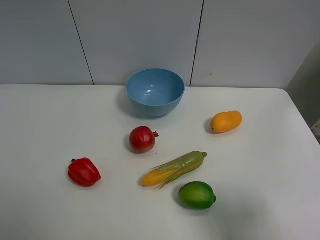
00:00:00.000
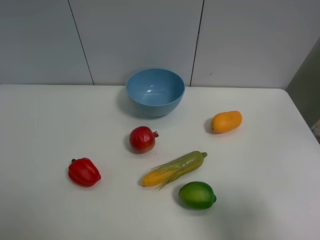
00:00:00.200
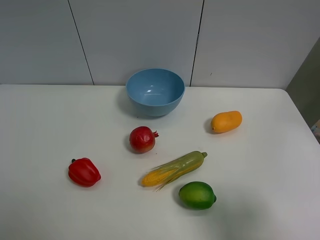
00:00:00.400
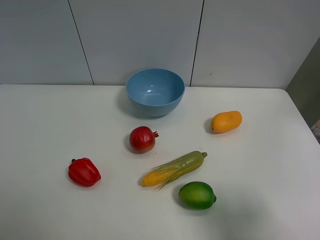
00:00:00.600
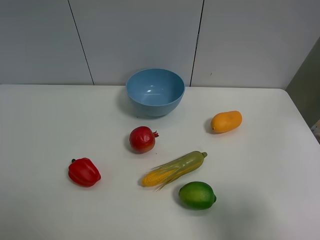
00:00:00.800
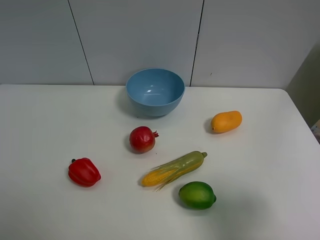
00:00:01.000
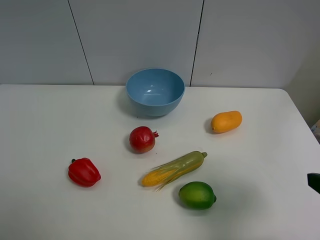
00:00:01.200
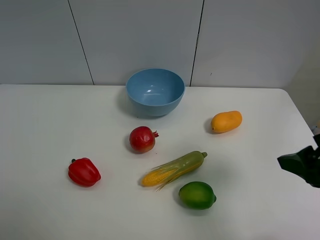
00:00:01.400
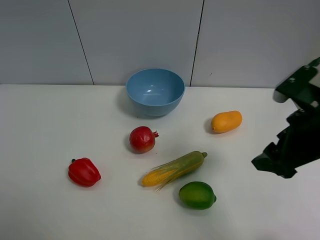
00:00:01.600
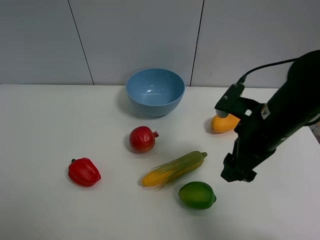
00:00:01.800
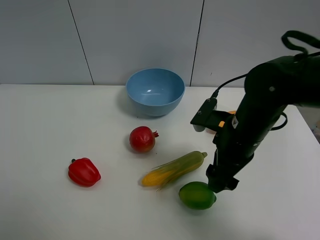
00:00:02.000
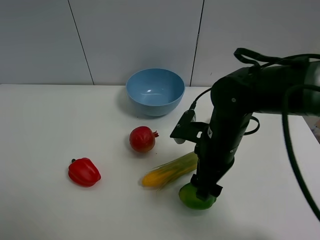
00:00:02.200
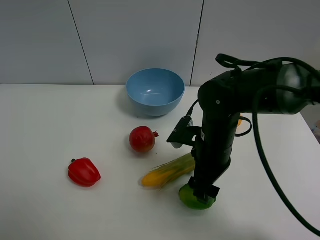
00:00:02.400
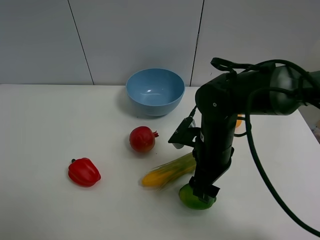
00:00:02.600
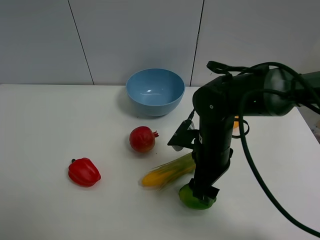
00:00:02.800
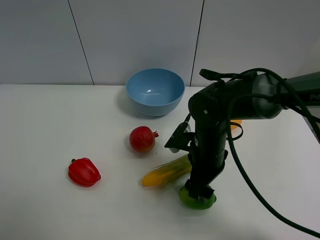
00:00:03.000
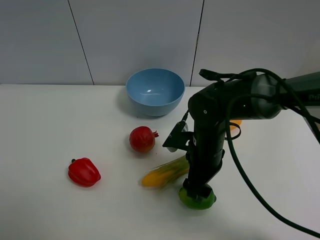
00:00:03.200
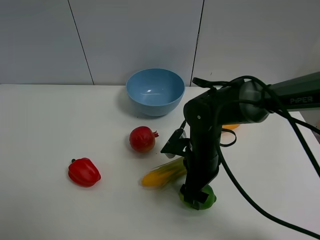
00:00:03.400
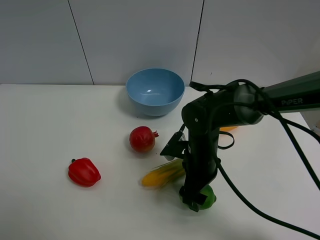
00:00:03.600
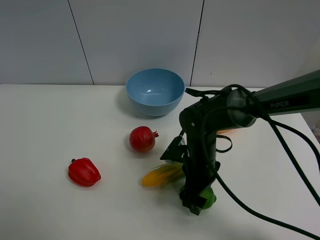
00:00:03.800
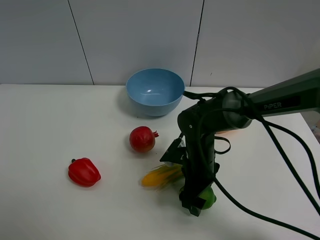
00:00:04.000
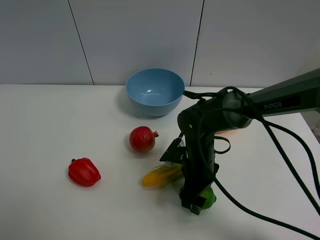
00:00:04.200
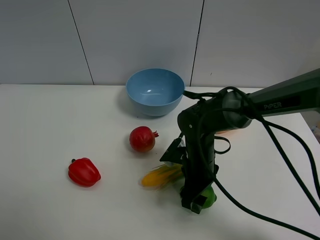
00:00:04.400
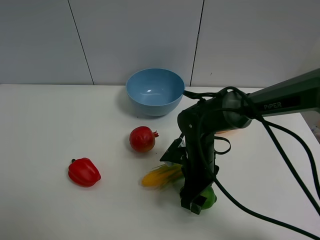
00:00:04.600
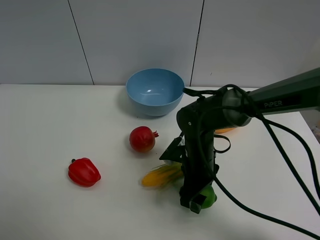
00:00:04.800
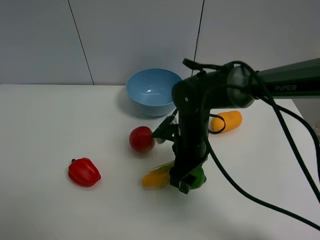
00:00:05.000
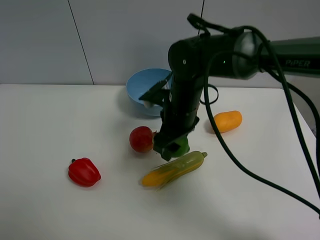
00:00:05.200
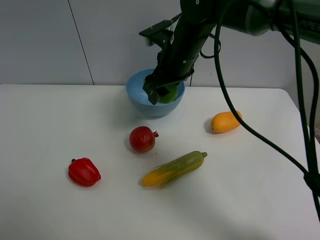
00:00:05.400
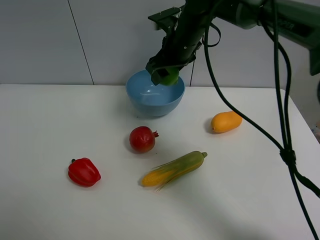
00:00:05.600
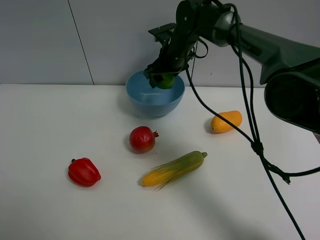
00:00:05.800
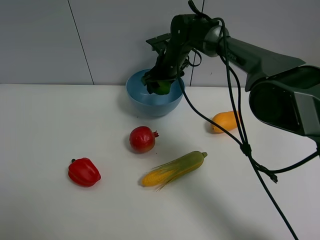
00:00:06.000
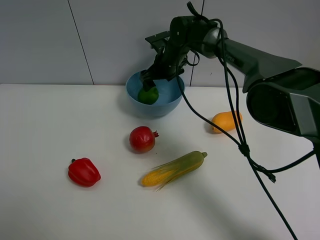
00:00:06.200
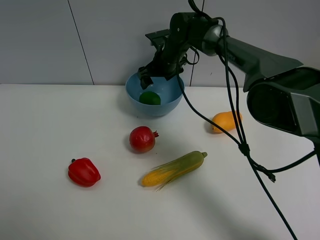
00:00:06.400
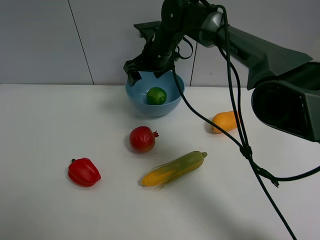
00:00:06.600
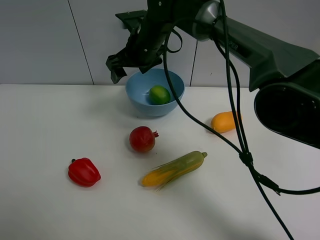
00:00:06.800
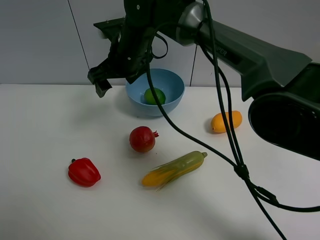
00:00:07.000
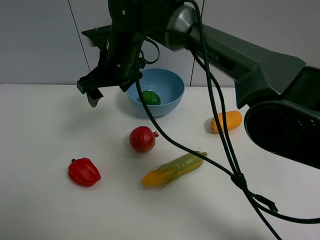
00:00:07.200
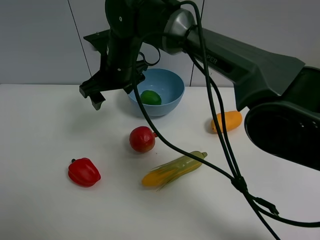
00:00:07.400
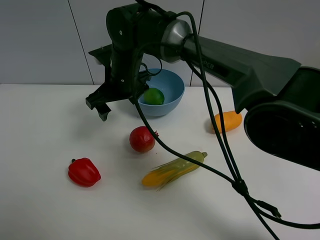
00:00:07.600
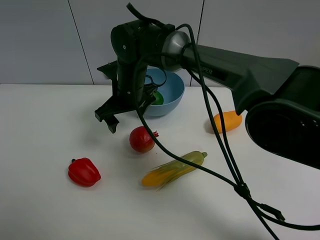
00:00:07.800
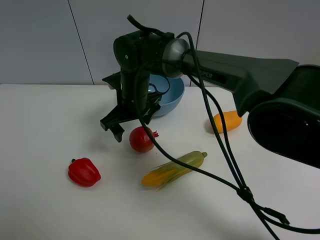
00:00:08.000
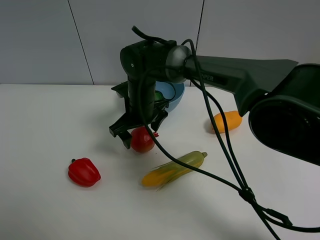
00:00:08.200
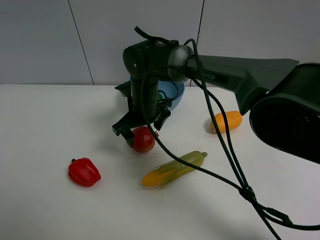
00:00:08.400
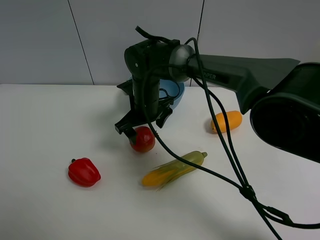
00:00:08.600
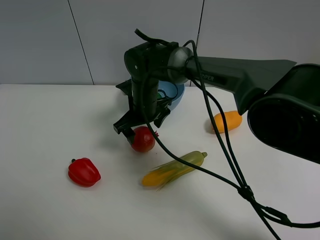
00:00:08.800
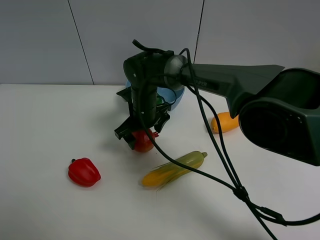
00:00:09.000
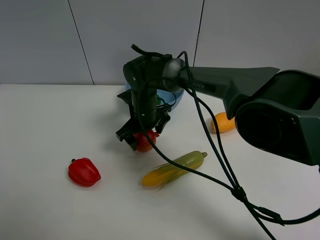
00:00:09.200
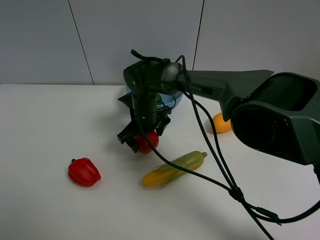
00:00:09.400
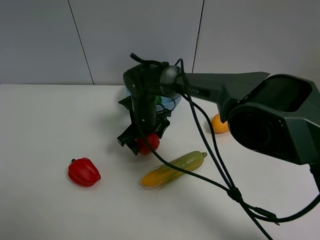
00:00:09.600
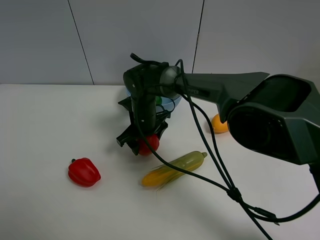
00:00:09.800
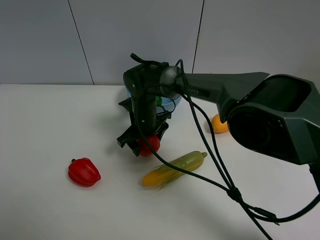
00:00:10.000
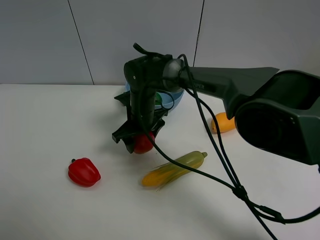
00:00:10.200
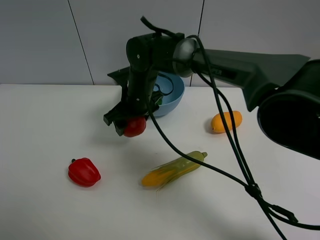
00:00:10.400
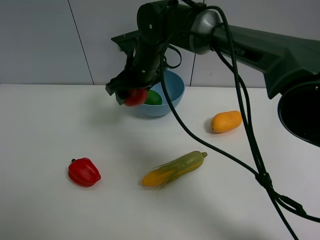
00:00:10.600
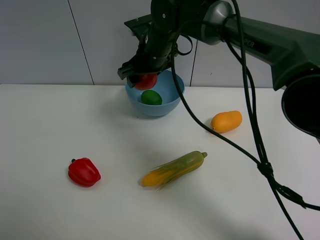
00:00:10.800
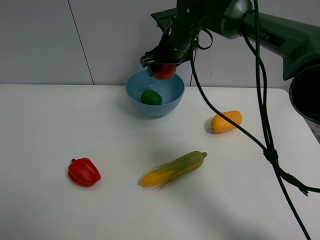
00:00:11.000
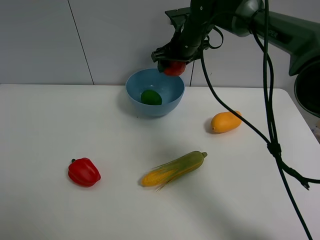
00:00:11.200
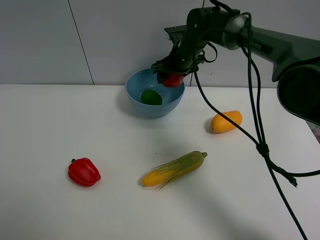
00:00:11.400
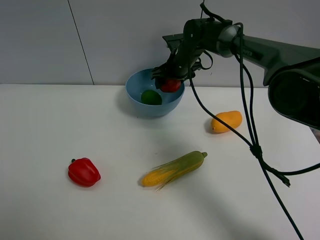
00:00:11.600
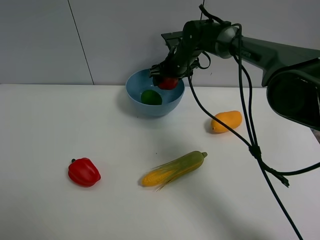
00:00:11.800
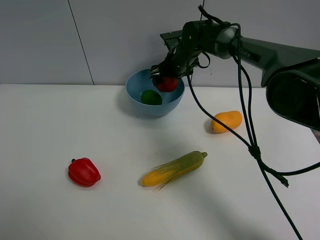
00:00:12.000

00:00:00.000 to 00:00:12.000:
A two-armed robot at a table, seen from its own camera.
Task of the whole recording: Put the three fruits on the table into a bowl.
Step, 00:00:00.000 to 00:00:04.600: Grasp the green lemon with right gripper.
Step, 00:00:04.800 to 00:00:06.400: Place the green lemon in the blue bowl with right gripper.
Step, 00:00:06.600 to 00:00:09.800: Grasp the pomegranate with right gripper.
00:00:00.000 to 00:00:01.600: The right gripper heads forward and to the left, covering approximately 20 cm.
00:00:01.600 to 00:00:03.000: The right gripper shifts approximately 20 cm to the left and downward.
00:00:03.000 to 00:00:04.400: The right gripper closes its fingers.
00:00:04.400 to 00:00:06.000: The right gripper shifts about 25 cm forward.
00:00:06.000 to 00:00:07.600: The right gripper travels backward and to the left by some 15 cm, and opens.
00:00:07.600 to 00:00:09.000: The right gripper is displaced downward by about 10 cm.
00:00:09.000 to 00:00:10.400: The right gripper is displaced upward by some 5 cm, and closes up.
00:00:10.400 to 00:00:12.000: The right gripper travels forward and to the right by about 15 cm.

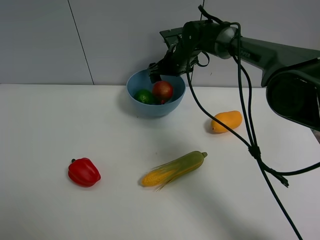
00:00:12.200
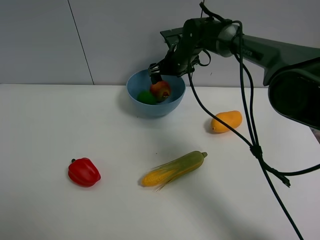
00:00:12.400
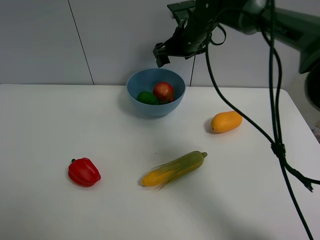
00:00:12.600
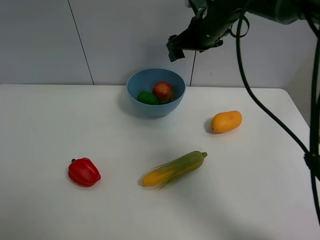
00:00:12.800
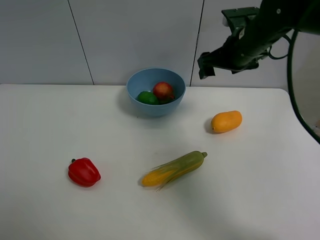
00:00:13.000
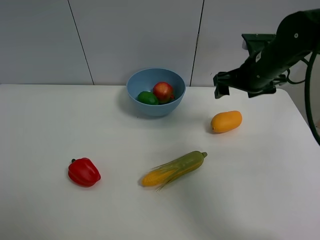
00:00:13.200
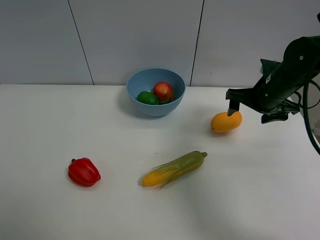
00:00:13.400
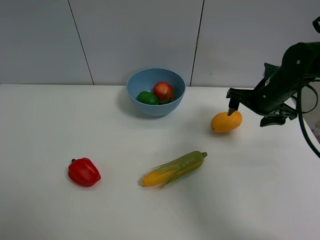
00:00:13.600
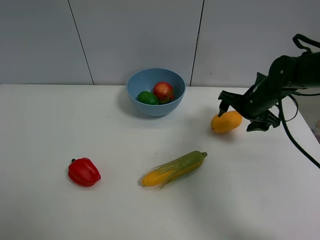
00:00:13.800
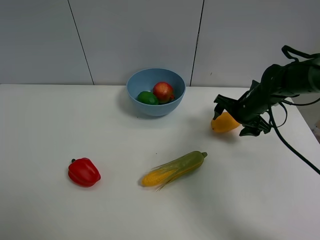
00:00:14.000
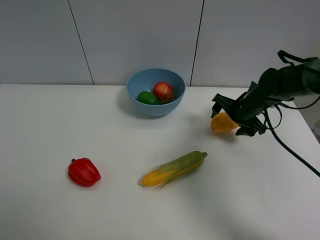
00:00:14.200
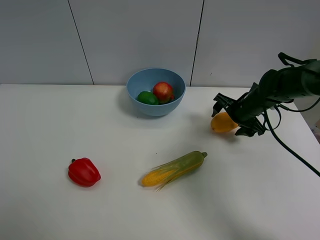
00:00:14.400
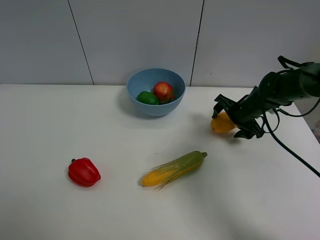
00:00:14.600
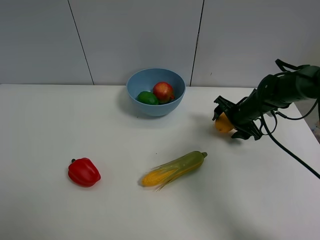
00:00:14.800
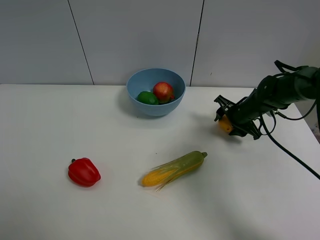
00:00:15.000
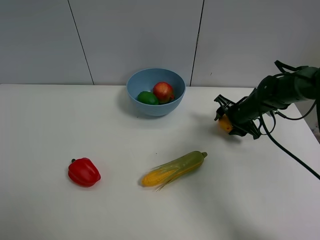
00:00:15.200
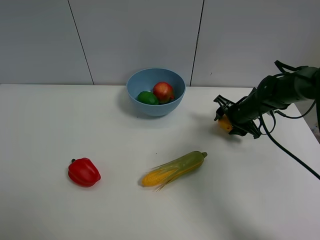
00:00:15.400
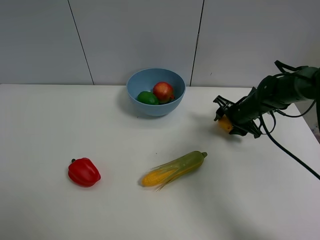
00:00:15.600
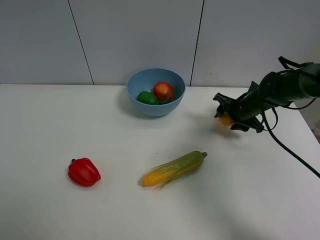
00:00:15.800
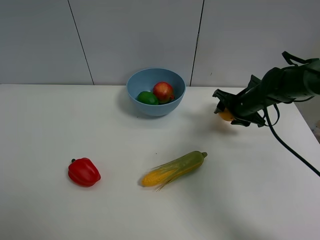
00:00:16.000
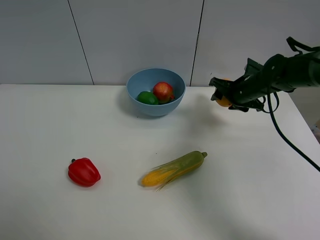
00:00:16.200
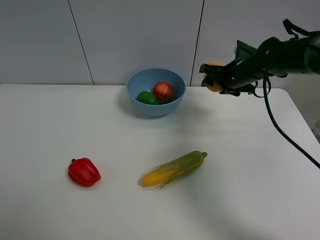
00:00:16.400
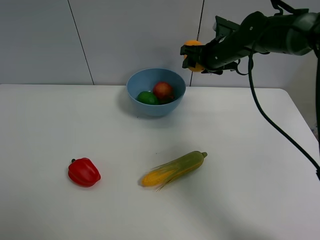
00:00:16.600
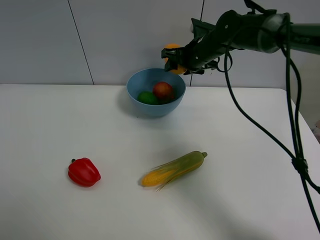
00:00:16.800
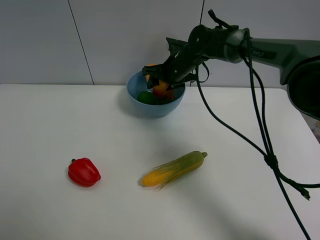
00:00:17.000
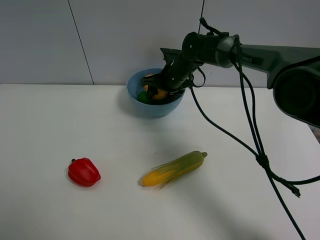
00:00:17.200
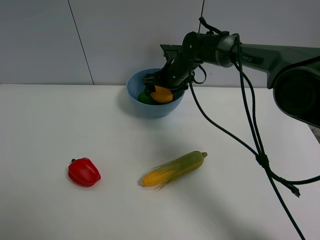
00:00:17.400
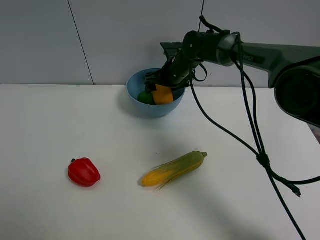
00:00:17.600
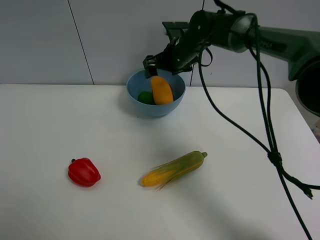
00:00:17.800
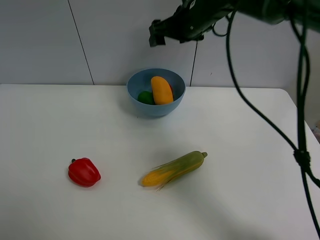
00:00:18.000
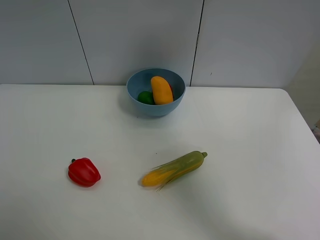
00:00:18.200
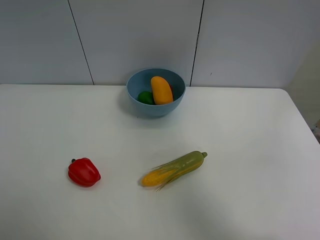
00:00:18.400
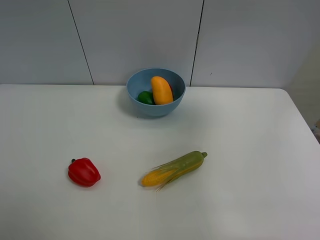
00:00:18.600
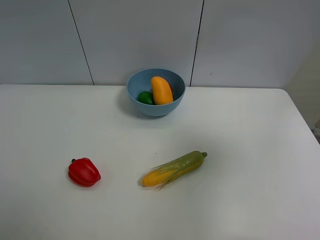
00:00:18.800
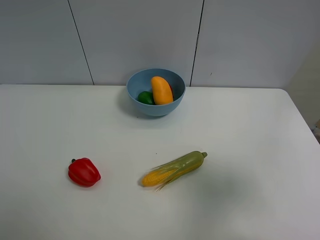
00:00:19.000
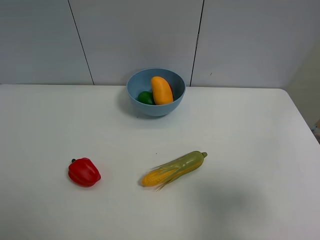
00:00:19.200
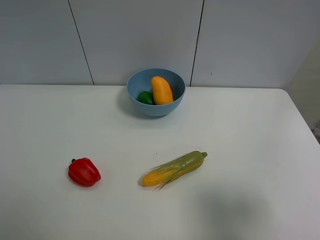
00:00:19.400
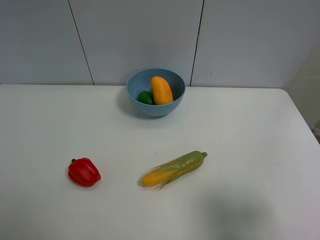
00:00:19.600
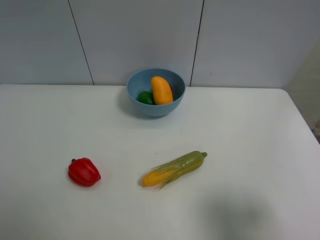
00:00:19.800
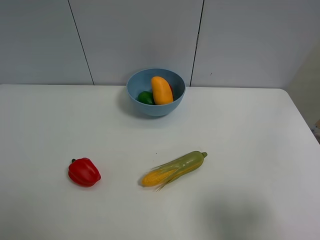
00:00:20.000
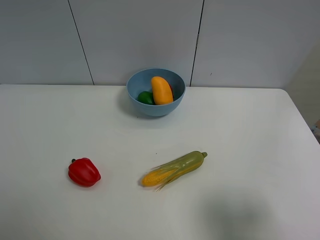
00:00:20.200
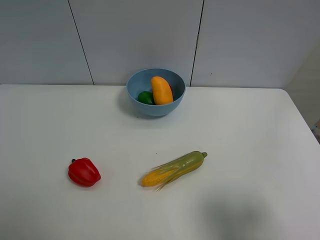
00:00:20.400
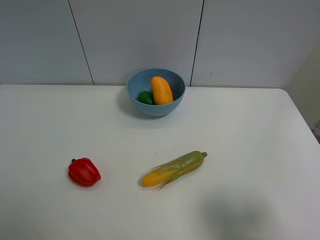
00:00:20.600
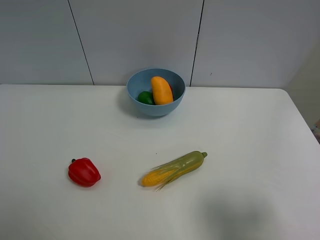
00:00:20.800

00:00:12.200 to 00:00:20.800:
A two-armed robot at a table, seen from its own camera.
Task of the whole recording: Put the three fruits on the table into a bowl.
Step, 00:00:12.400 to 00:00:15.000: Grasp the mango with right gripper.
Step, 00:00:15.200 to 00:00:17.600: Place the mango in the blue bowl with right gripper.
00:00:12.200 to 00:00:13.600: The right gripper goes some 25 cm to the right and backward.
00:00:13.600 to 00:00:15.000: The right gripper shifts roughly 10 cm downward, and closes.
00:00:15.000 to 00:00:16.600: The right gripper moves upward, to the left and forward, about 20 cm.
00:00:16.600 to 00:00:18.000: The right gripper goes some 10 cm upward and to the left, and opens its fingers.
00:00:18.000 to 00:00:19.400: The right gripper shifts some 50 cm backward and to the right.
